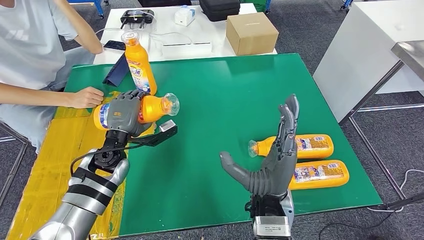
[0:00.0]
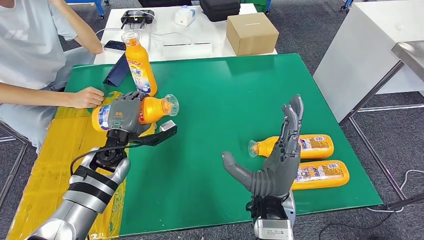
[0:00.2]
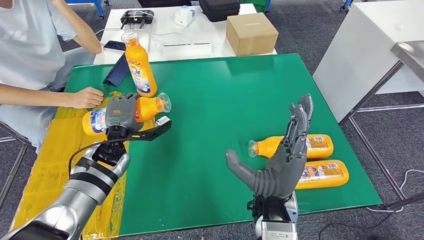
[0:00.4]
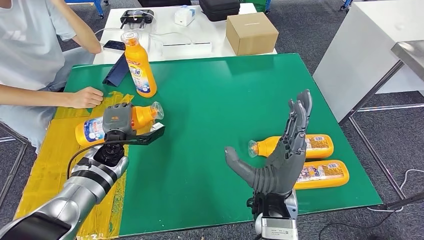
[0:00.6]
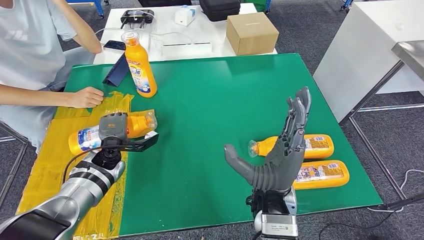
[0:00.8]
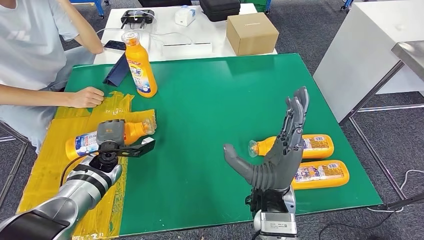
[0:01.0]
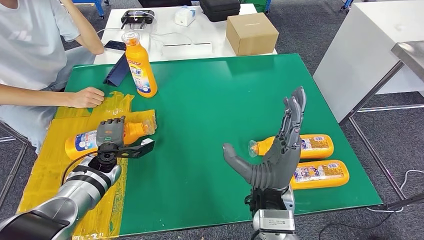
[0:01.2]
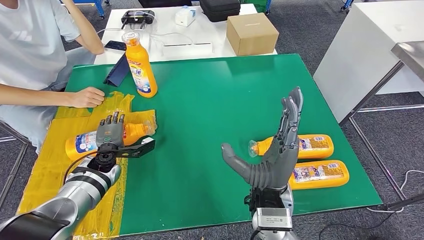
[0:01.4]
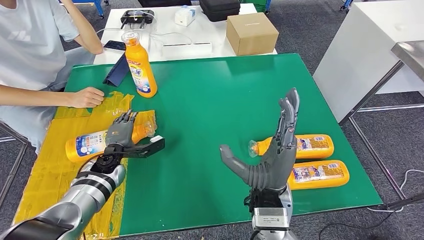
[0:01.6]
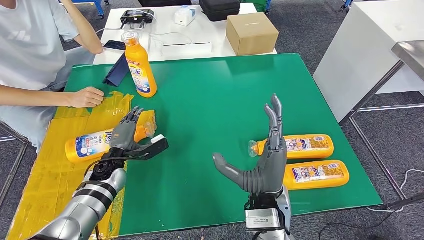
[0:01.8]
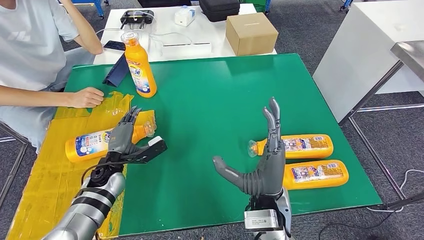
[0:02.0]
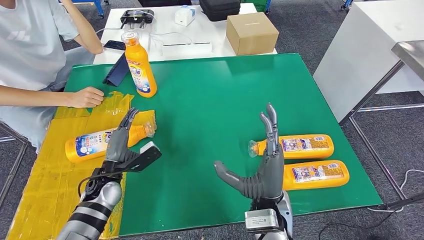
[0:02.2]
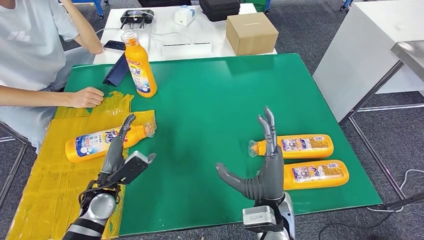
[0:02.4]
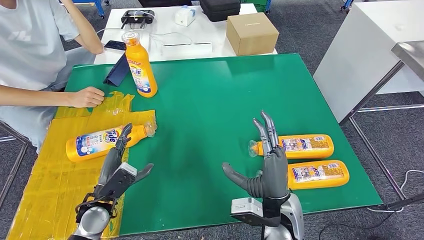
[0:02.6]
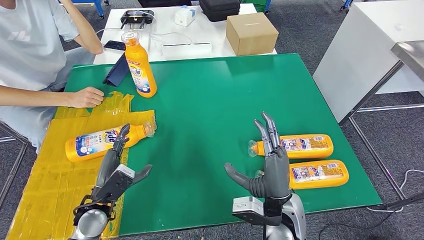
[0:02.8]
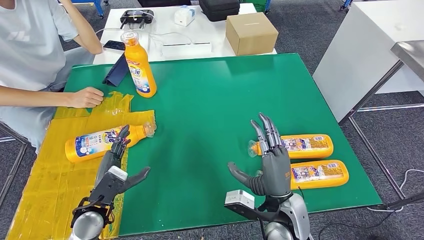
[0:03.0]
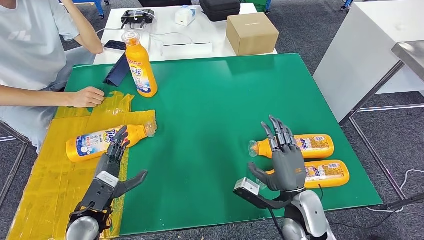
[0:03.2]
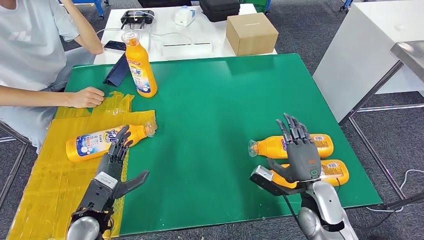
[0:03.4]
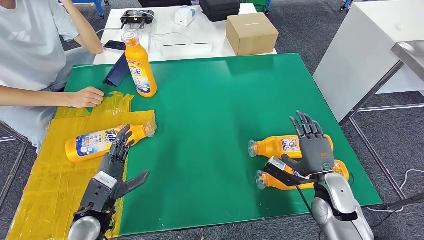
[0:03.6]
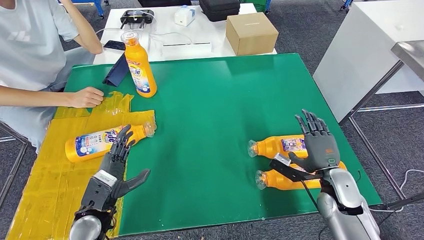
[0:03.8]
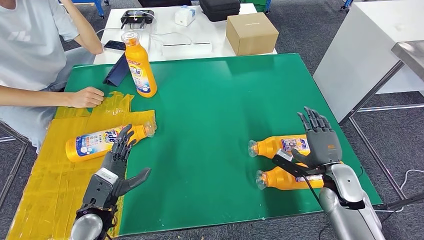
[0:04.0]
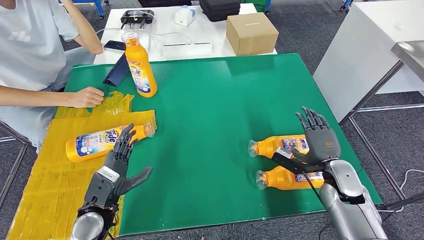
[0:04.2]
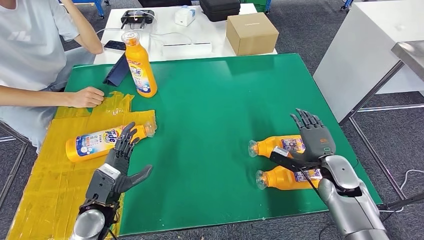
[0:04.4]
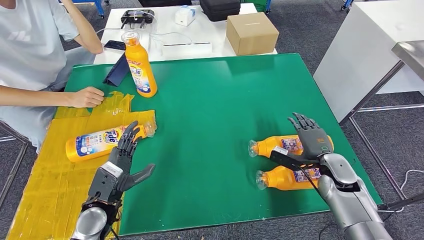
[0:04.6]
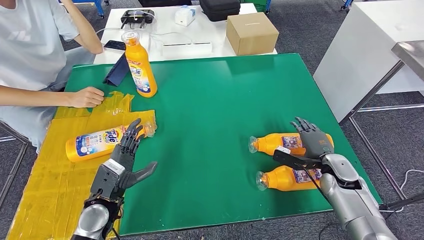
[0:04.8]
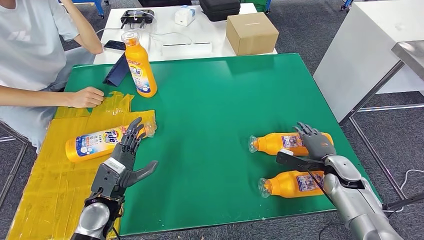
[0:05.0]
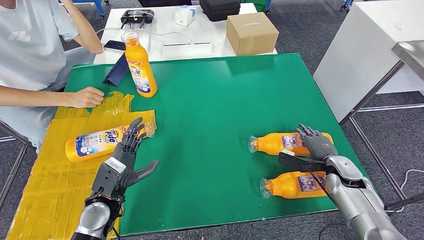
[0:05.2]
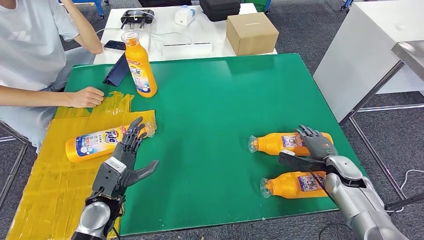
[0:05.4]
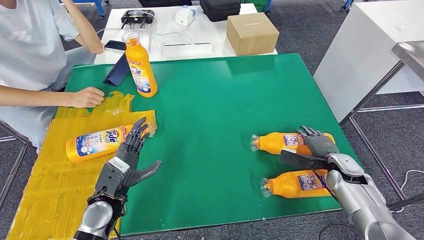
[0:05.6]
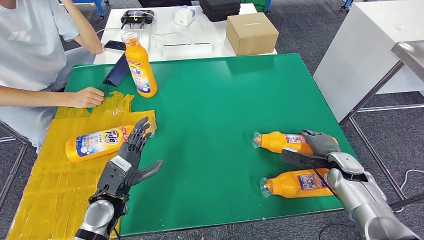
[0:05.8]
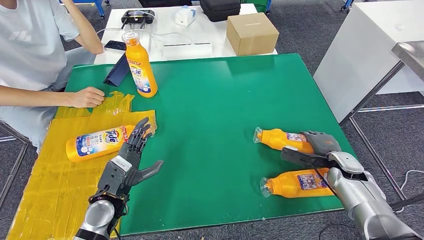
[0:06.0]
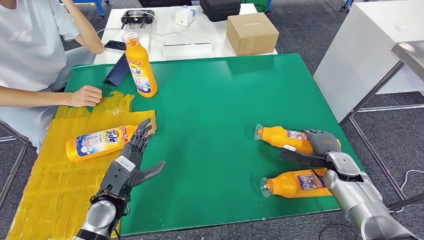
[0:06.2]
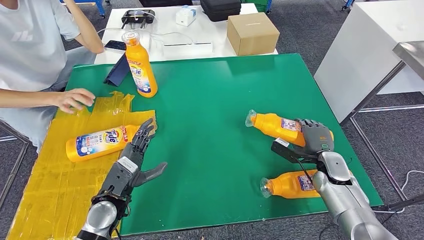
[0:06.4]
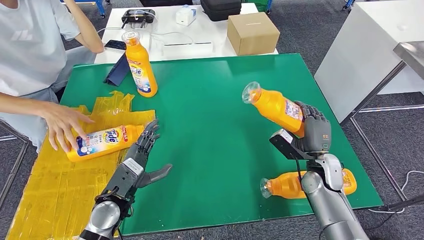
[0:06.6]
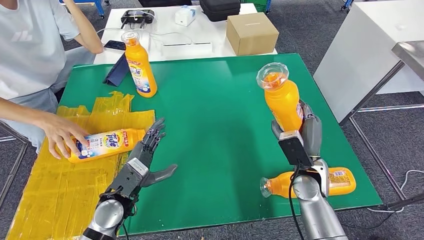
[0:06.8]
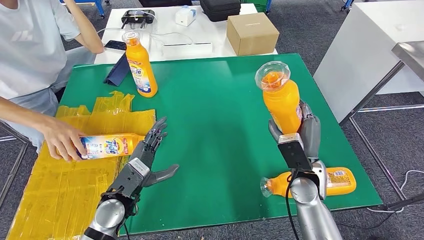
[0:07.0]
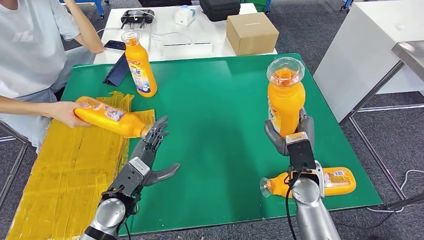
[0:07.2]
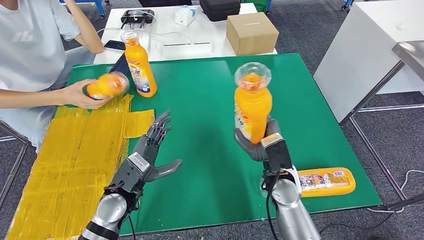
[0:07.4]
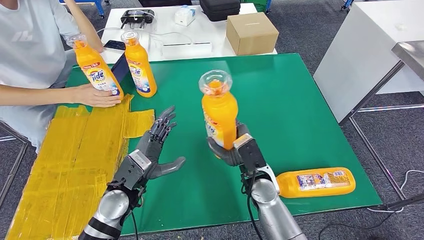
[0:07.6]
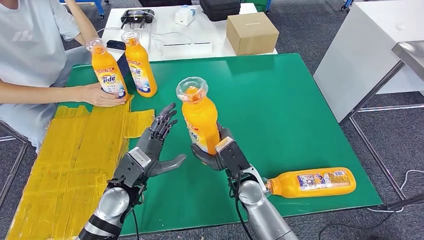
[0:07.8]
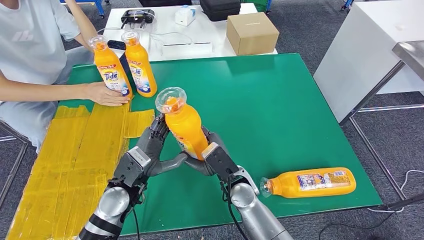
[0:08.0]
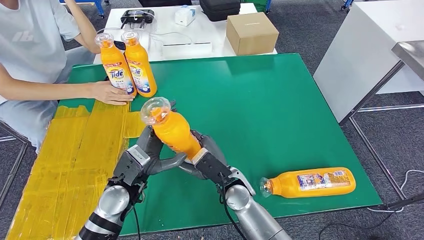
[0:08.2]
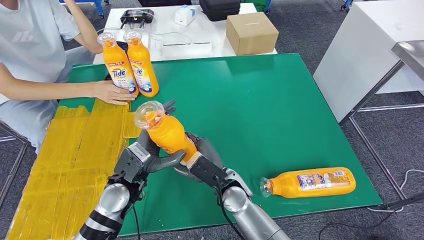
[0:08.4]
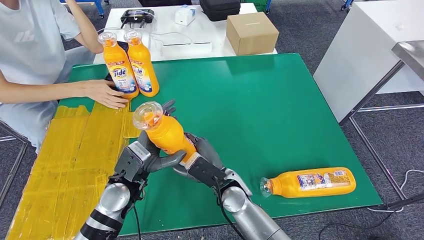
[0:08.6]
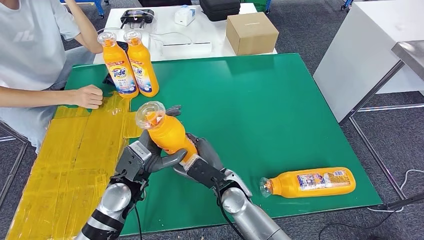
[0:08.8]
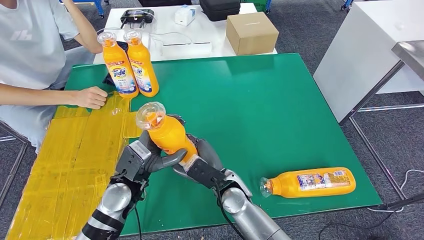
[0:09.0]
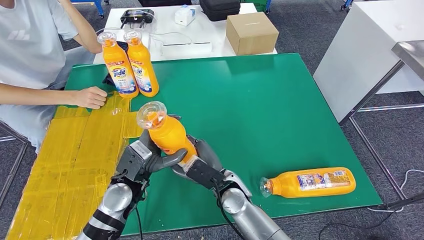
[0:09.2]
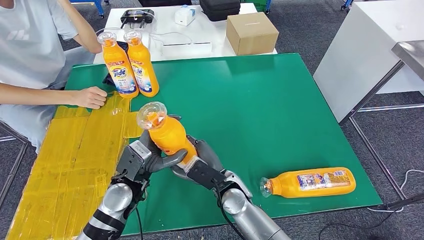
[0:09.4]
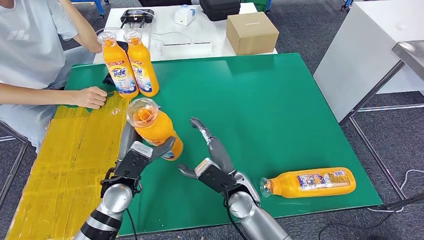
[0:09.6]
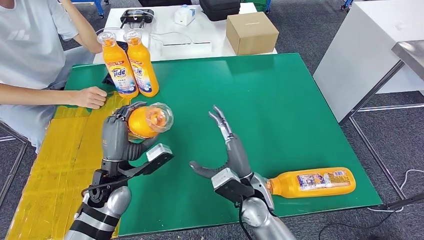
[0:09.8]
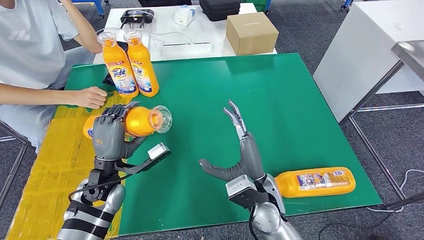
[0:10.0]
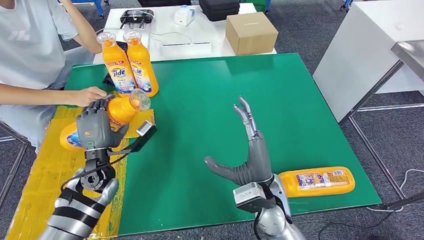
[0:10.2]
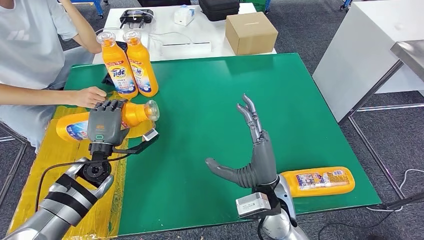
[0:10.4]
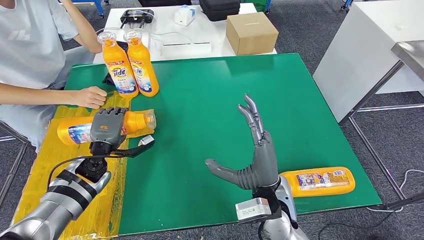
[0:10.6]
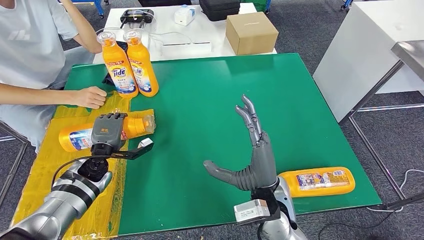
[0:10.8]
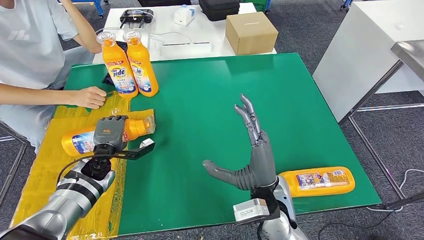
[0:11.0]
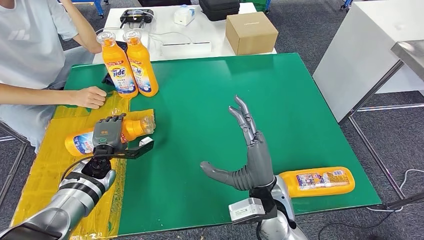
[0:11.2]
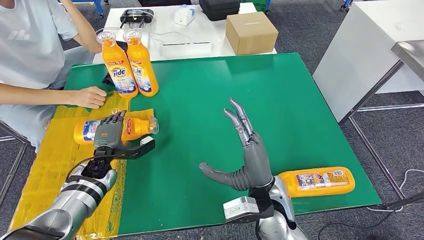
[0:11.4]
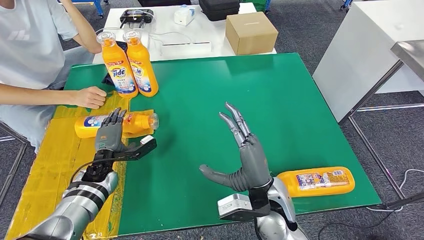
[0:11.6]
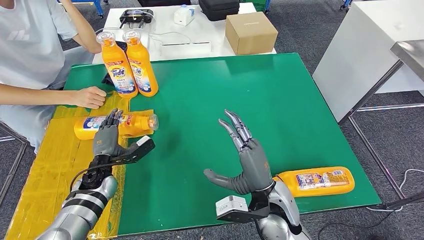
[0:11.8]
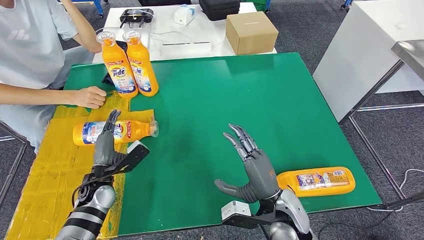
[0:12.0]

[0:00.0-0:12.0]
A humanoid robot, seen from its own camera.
Step, 0:00.0 to 0:02.4: Flip the fast-moving consumer goods bottle to the front side.
Step, 0:05.6 to 0:09.2: Pick up the fast-moving consumer goods bottle from the table.
0:00.0 to 0:01.6: The left hand travels downward by about 10 cm.
0:01.6 to 0:03.0: The left hand shifts approximately 15 cm backward. The right hand moves downward and to the right, roughly 10 cm.
0:03.0 to 0:04.4: The right hand moves to the right and forward, approximately 20 cm.
0:04.4 to 0:06.0: The right hand travels to the right by about 5 cm.
0:07.6 to 0:09.0: The right hand travels to the left by some 5 cm.
0:09.0 to 0:10.4: The left hand travels to the left and forward by about 10 cm. Meanwhile the right hand travels to the right and upward by roughly 10 cm.
0:10.4 to 0:12.0: The right hand ends up about 5 cm from where it was. The left hand shifts approximately 5 cm downward.

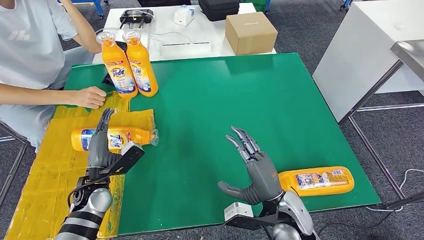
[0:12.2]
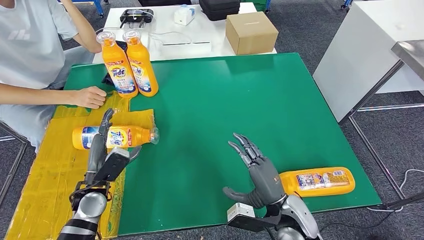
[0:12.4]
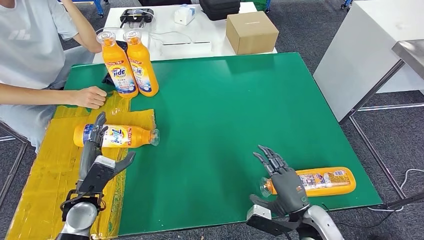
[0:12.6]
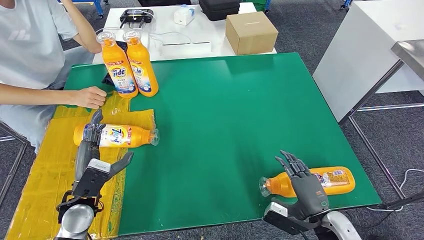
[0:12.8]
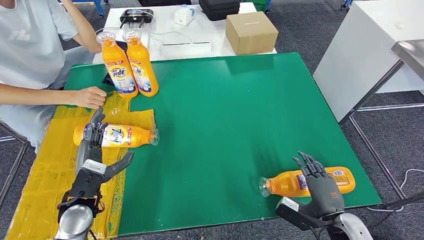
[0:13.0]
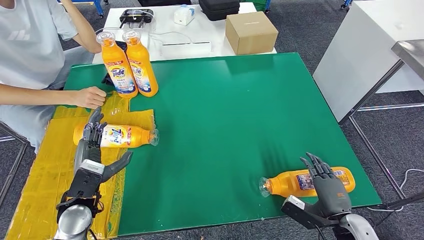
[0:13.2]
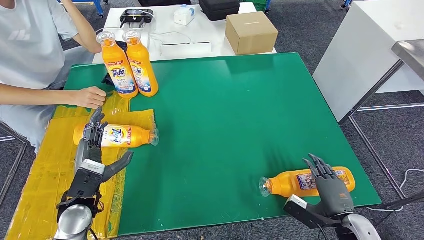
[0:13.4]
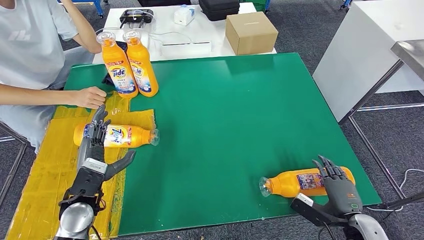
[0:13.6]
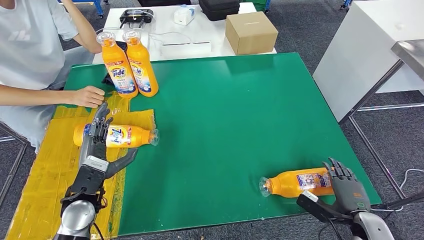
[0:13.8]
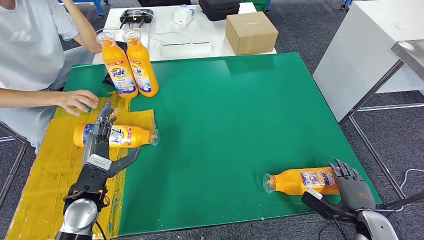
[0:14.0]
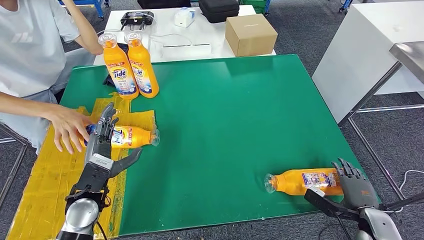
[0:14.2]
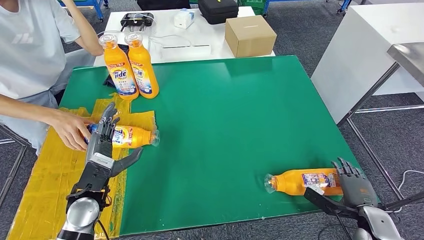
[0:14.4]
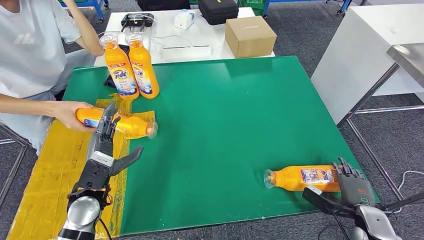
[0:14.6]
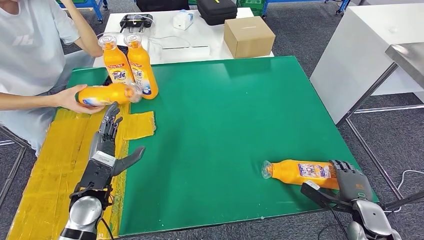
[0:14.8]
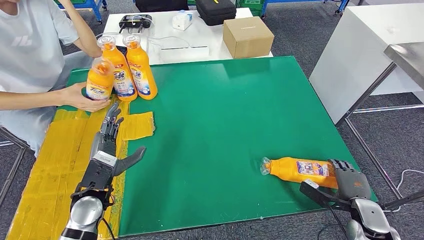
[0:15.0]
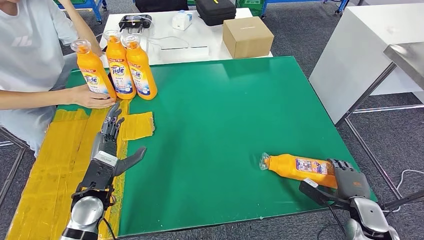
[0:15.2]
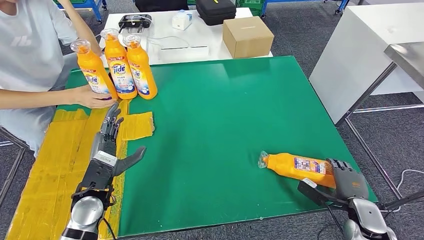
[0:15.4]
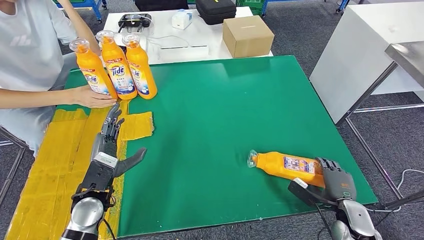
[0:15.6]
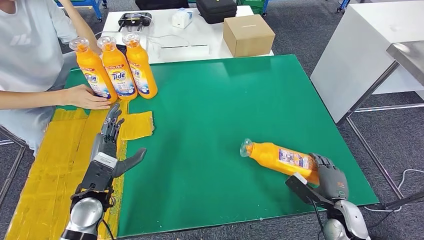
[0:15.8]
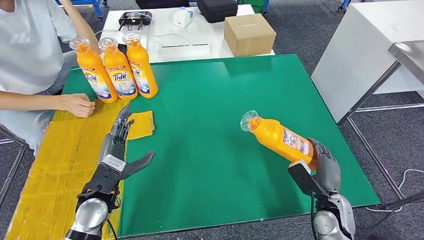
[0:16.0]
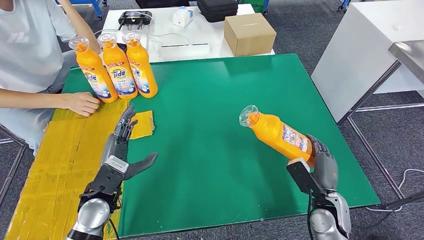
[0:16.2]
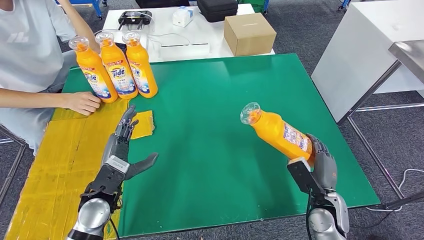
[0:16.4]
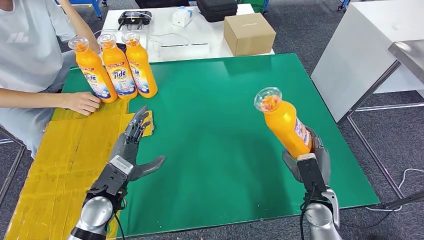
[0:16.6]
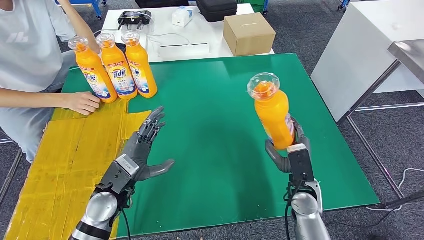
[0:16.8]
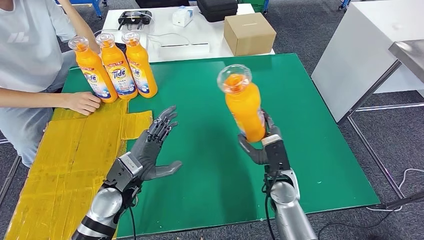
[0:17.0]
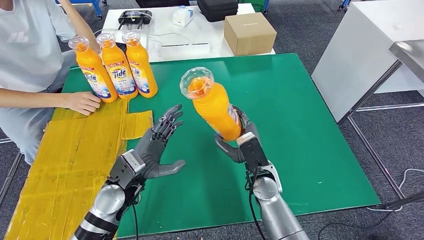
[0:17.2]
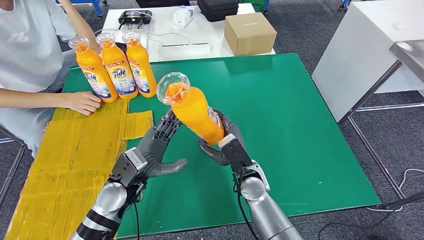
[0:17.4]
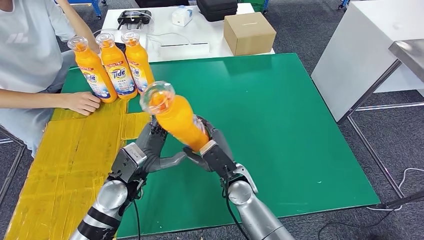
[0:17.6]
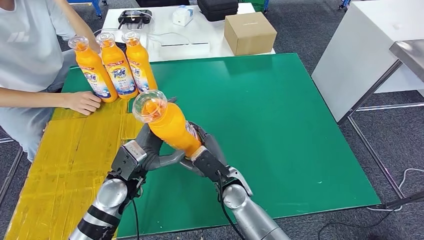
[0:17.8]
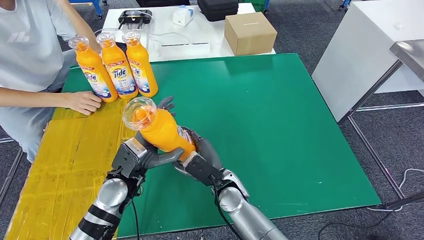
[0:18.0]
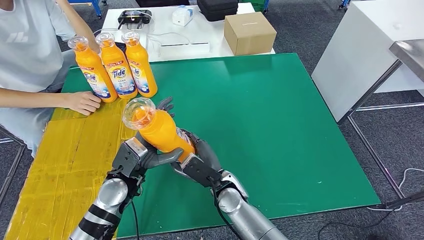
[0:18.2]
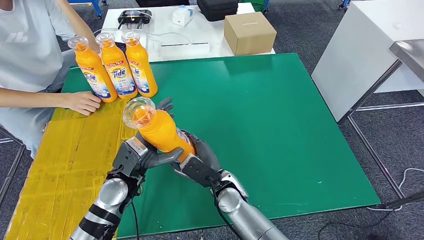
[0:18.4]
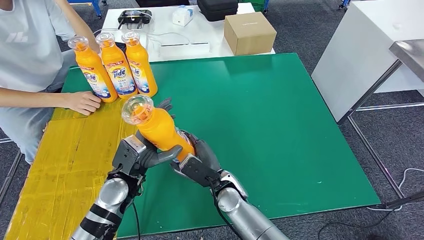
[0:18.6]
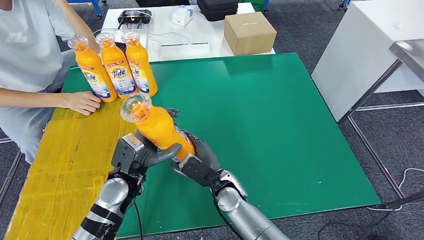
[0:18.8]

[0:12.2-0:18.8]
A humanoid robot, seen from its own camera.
Step, 0:13.6 to 0:18.2: Pick up the fast-moving consumer goods bottle from the table.
0:12.2 to 0:13.8: The right hand moves to the right, some 20 cm, while the left hand ends up approximately 5 cm from where it was.
0:17.2 to 0:18.8: The right hand heads to the left, covering some 10 cm.
